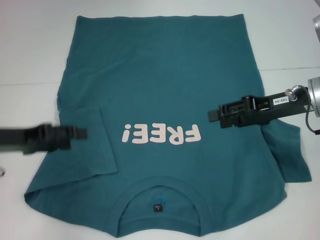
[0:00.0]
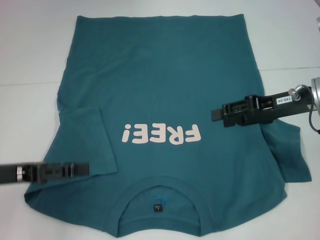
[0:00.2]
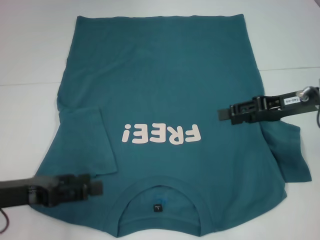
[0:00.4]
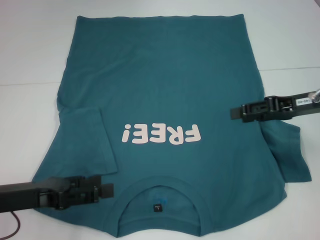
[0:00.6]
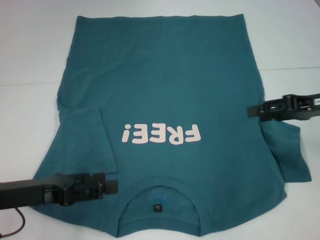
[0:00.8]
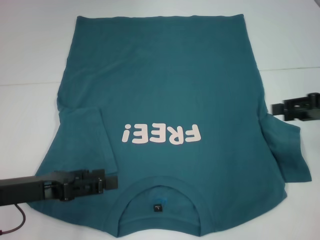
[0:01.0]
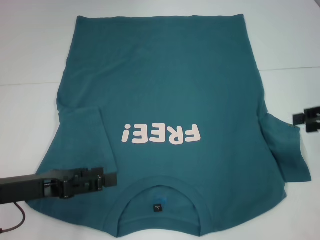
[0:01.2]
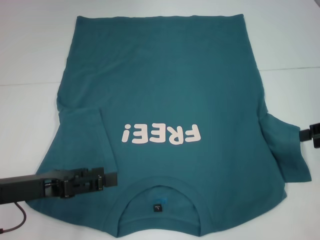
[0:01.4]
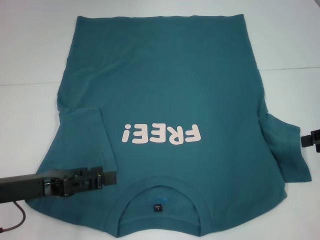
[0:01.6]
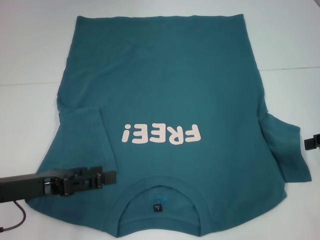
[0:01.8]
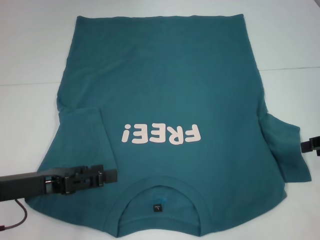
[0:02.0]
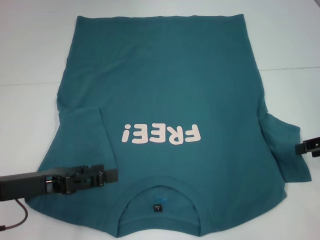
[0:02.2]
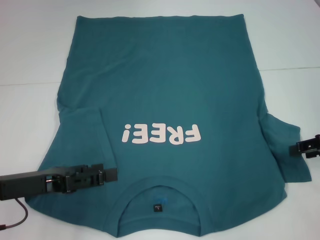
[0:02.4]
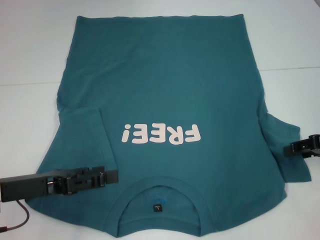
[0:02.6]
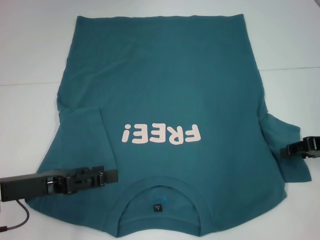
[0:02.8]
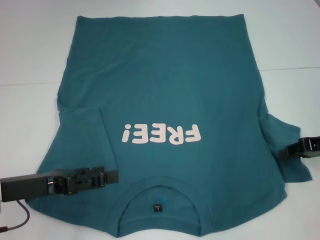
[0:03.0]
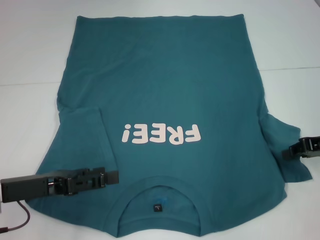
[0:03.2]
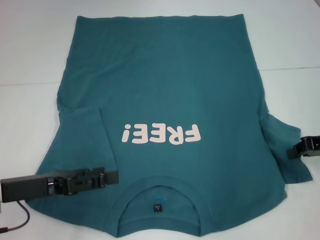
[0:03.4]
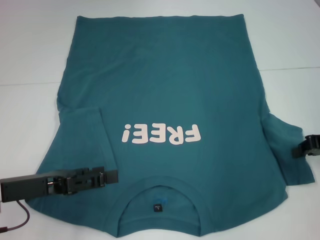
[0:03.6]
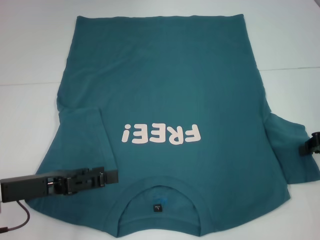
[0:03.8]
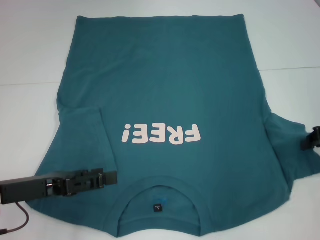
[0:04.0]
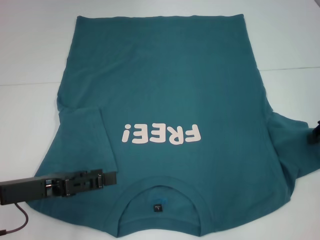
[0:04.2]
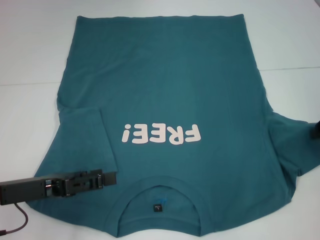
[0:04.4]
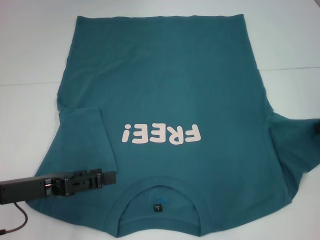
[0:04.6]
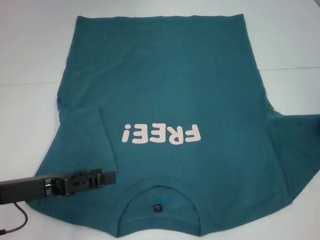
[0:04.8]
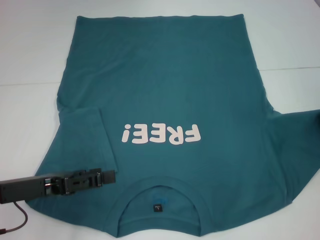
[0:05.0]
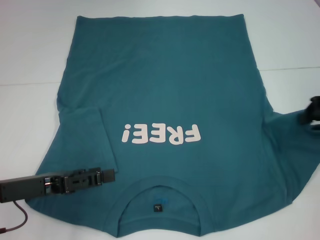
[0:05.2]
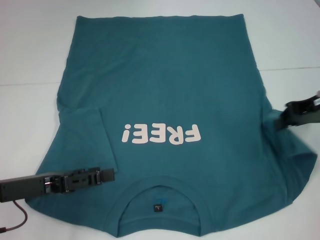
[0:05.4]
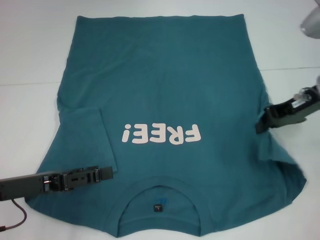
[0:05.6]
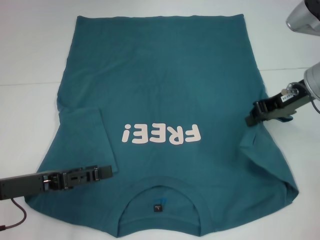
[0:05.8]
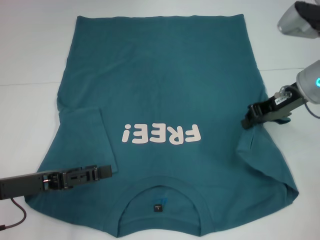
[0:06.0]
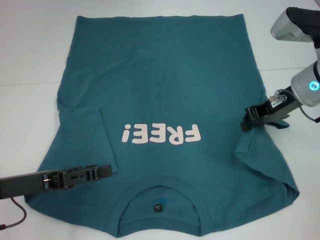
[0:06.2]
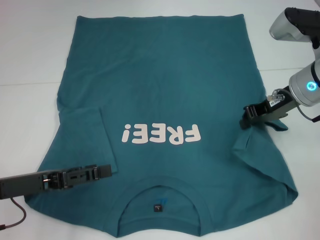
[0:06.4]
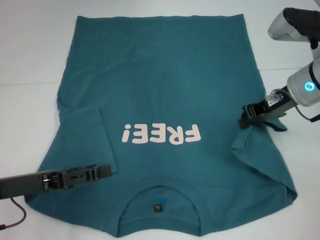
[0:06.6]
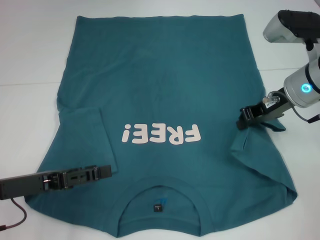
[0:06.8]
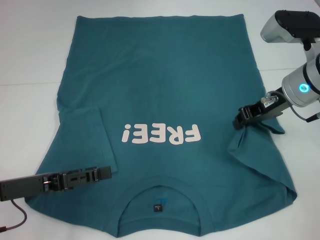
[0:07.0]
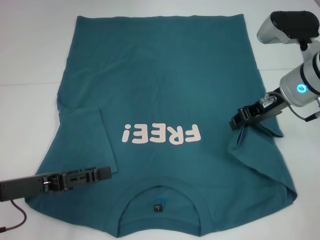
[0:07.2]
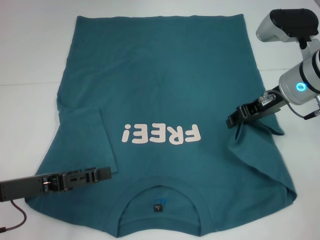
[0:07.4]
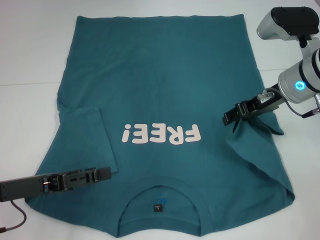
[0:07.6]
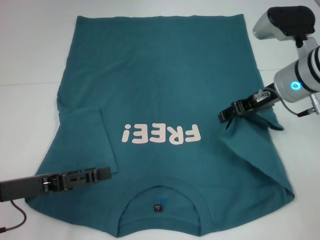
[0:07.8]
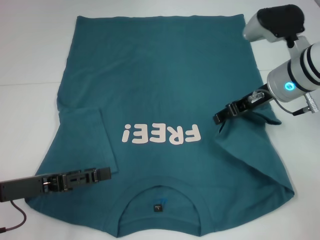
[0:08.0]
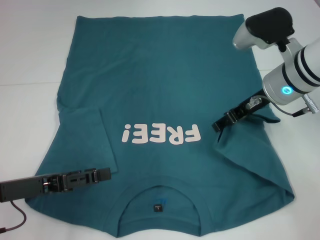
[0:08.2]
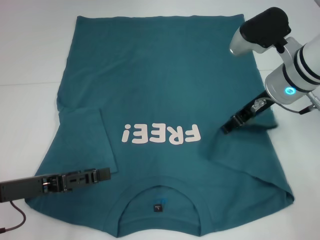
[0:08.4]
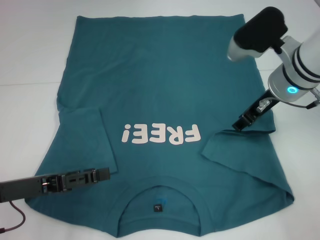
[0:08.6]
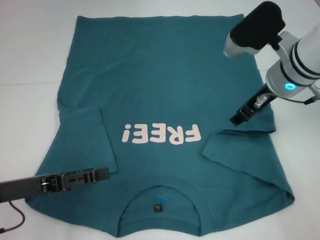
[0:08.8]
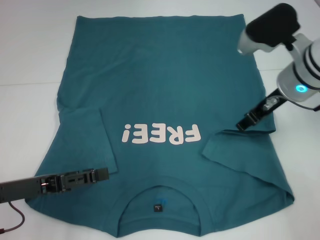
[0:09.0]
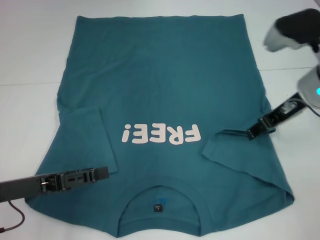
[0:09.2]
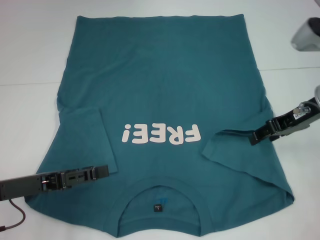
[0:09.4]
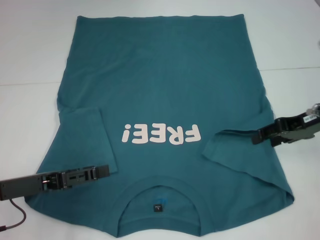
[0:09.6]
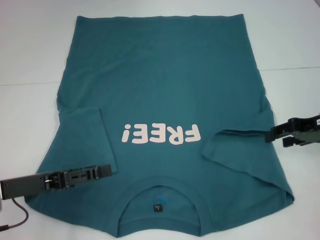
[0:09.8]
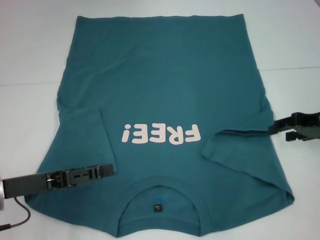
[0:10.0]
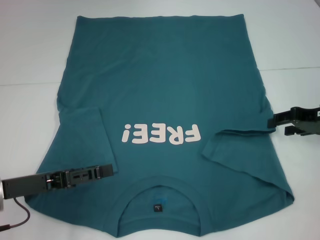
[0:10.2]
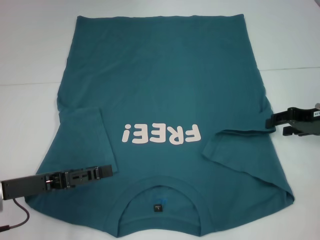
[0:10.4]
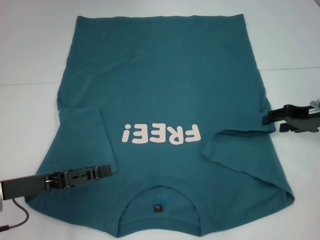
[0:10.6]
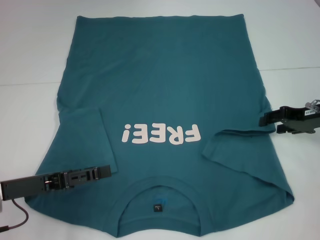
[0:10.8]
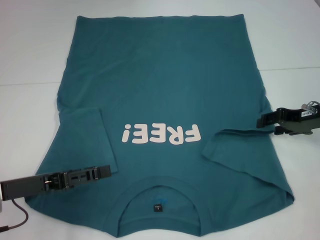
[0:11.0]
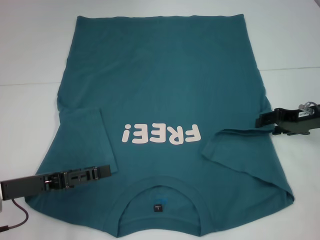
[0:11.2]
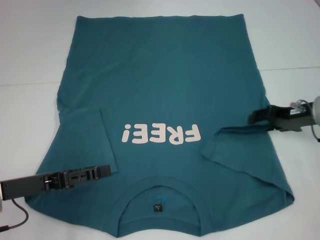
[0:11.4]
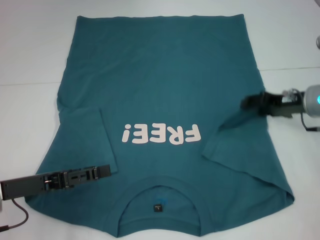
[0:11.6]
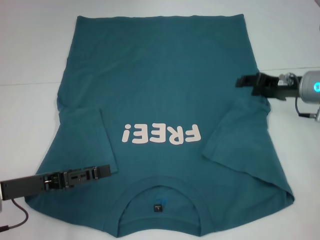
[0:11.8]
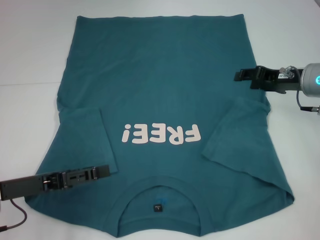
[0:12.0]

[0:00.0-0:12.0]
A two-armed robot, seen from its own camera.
Step, 0:00.0 to 0:11.6: Fold the bottom right sleeve to the right.
0:00.0 to 0:01.6: The right gripper travels to the right and backward by some 15 cm, while the left gripper heads backward, covering some 5 cm.
0:01.6 to 0:03.0: The right gripper changes place by some 5 cm.
0:03.0 to 0:04.4: The right gripper moves approximately 5 cm, and closes its fingers.
0:04.4 to 0:06.0: The right gripper shifts approximately 10 cm to the left.
0:06.0 to 0:07.6: The right gripper opens up.
0:09.0 to 0:10.4: The right gripper is displaced to the right and downward by some 15 cm.
0:10.4 to 0:12.0: The right gripper moves about 5 cm.

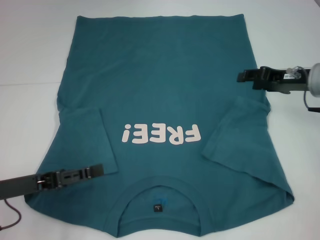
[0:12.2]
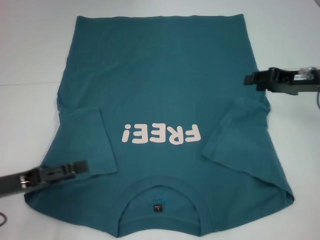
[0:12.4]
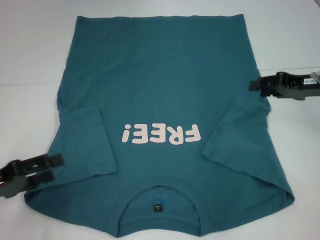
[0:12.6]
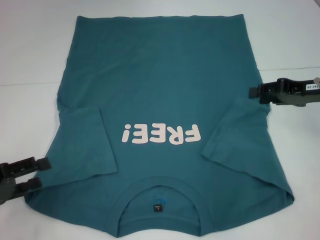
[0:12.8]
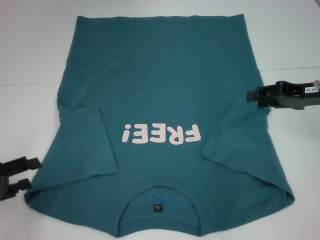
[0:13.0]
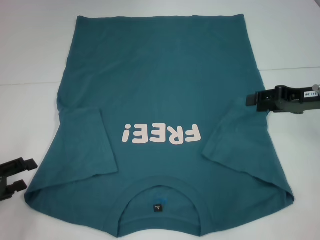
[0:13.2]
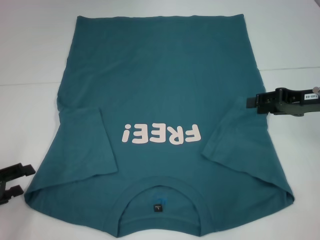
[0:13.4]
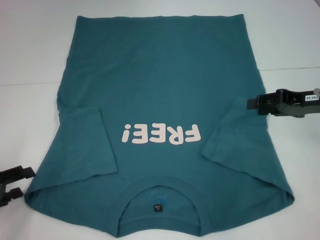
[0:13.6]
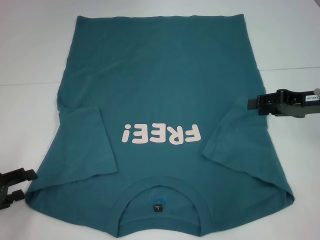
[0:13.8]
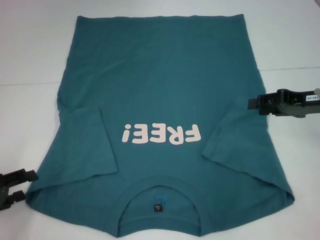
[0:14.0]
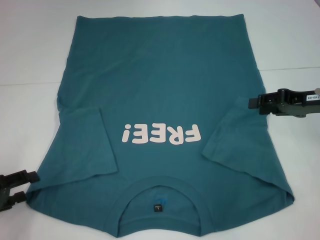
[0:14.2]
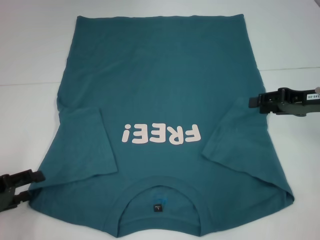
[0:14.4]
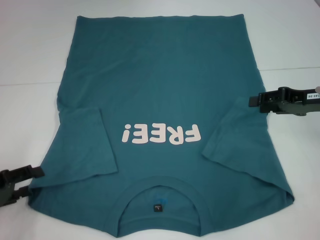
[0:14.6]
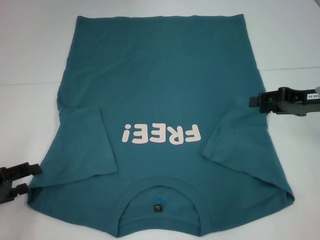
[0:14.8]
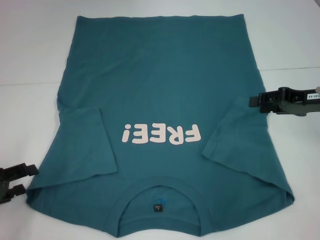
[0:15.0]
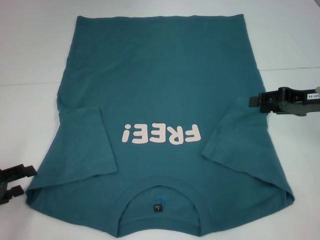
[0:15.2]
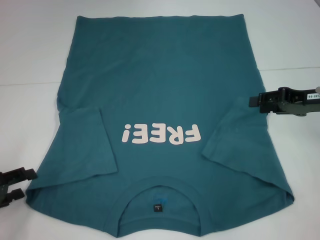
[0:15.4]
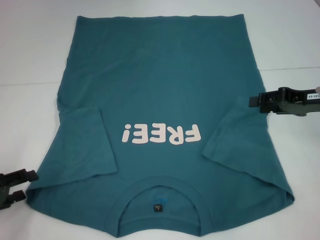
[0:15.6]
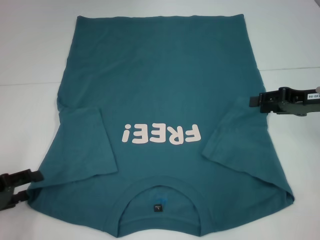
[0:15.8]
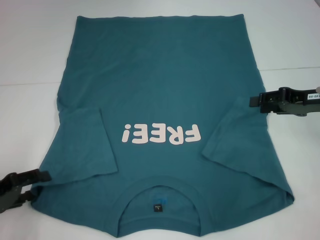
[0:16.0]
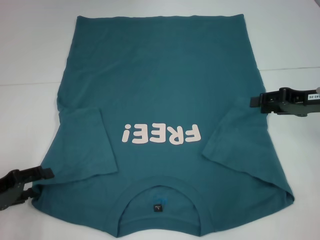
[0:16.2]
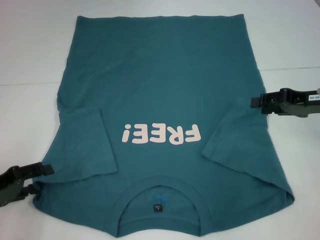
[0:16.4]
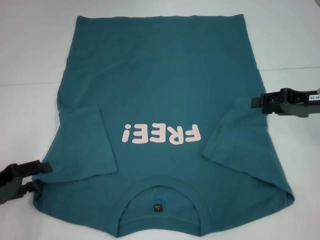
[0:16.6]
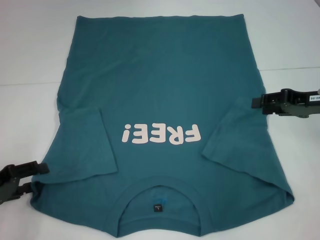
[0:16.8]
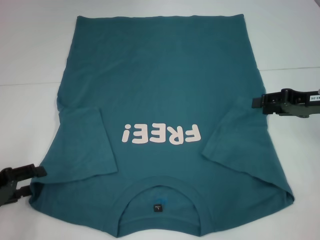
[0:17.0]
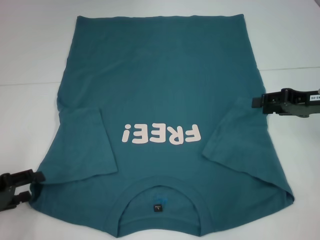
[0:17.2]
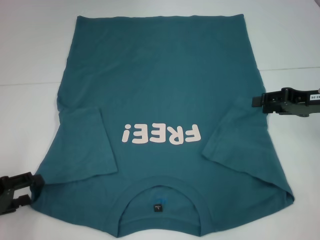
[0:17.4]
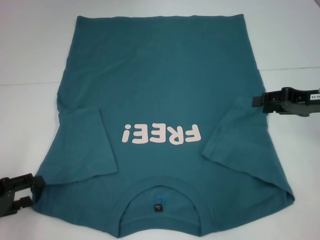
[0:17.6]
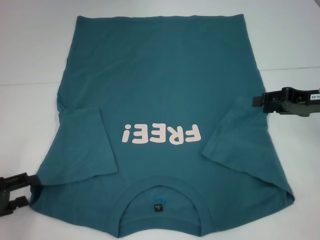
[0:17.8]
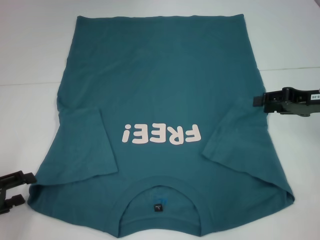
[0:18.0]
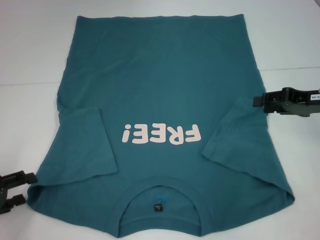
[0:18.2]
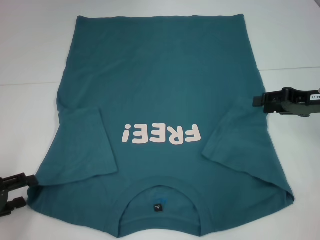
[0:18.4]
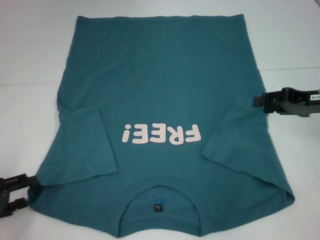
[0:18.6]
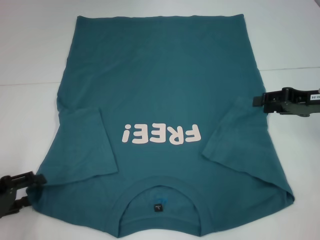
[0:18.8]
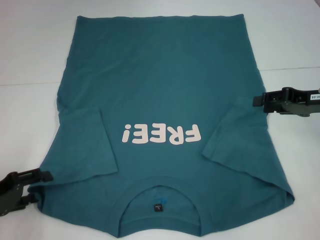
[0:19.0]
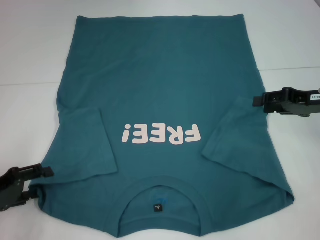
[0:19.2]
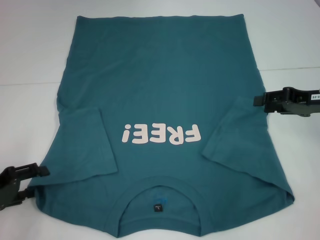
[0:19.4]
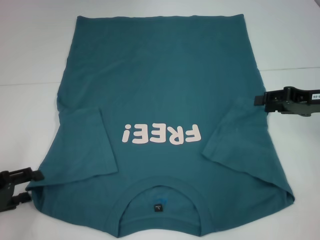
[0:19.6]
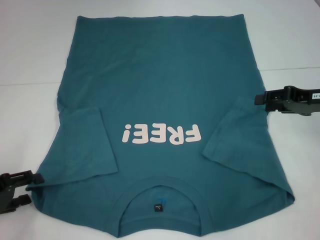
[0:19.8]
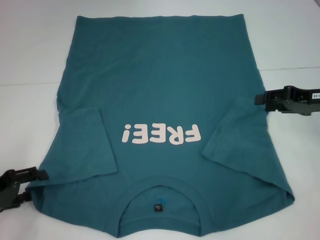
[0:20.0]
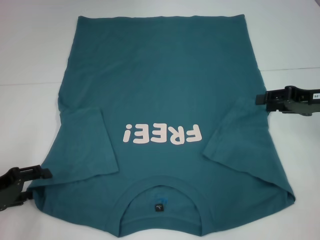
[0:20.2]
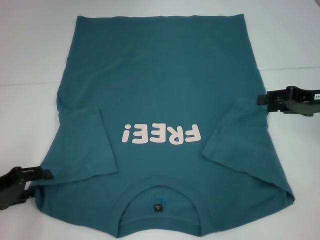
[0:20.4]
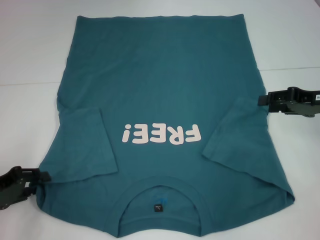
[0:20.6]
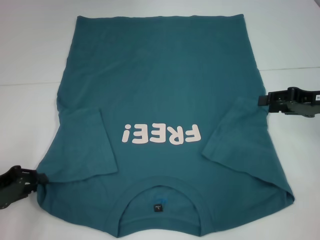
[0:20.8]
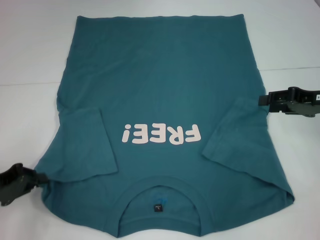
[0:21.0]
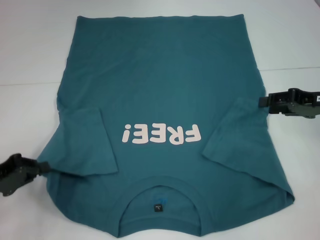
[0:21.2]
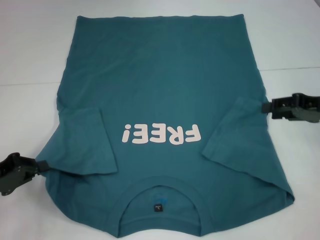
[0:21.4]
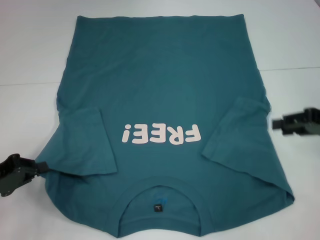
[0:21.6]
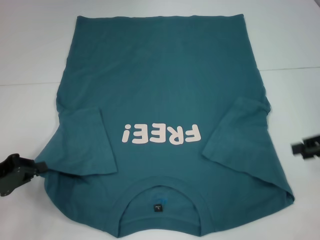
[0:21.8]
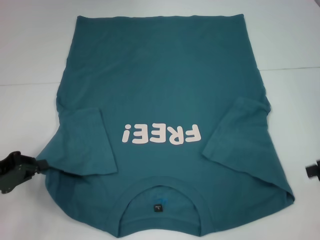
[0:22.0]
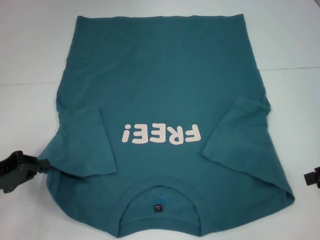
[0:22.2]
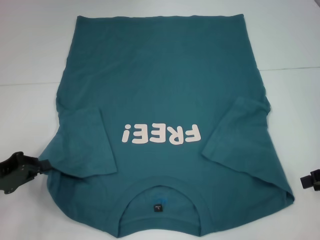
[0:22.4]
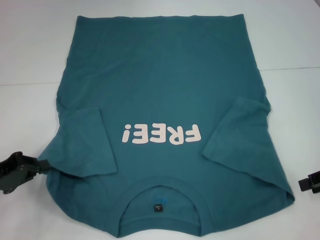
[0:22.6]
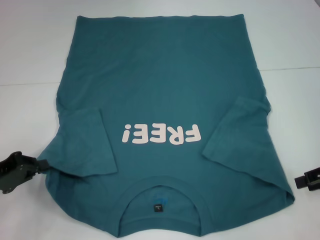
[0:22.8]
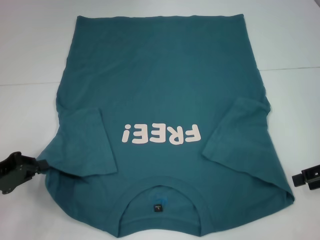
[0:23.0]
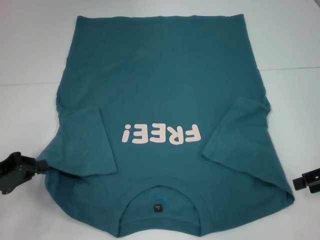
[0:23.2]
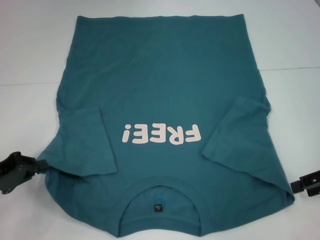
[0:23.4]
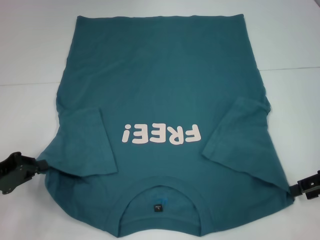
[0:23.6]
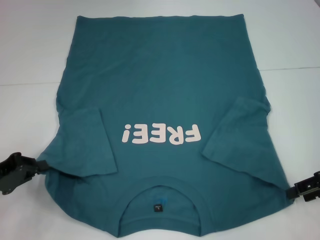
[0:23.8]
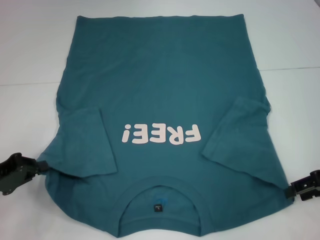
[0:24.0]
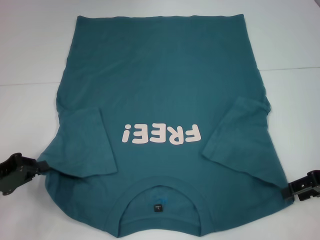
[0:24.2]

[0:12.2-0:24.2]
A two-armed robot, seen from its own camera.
Step, 0:12.2 to 0:20.8: Grab the bottom left corner with your left hand.
0:12.2 to 0:13.8: The right gripper changes place by roughly 5 cm. Meanwhile the left gripper travels to the left by about 10 cm.
0:13.8 to 0:15.2: Neither gripper changes place.
0:15.2 to 0:19.8: The grippers stay close to where they were, moving slightly.
0:19.8 to 0:21.2: The left gripper closes its fingers.
0:21.2 to 0:22.6: The right gripper travels backward by some 5 cm.
0:22.6 to 0:24.2: The grippers move only a little.
